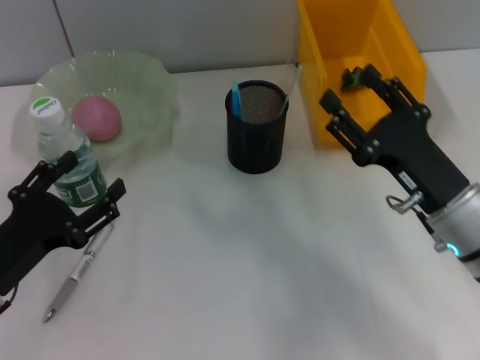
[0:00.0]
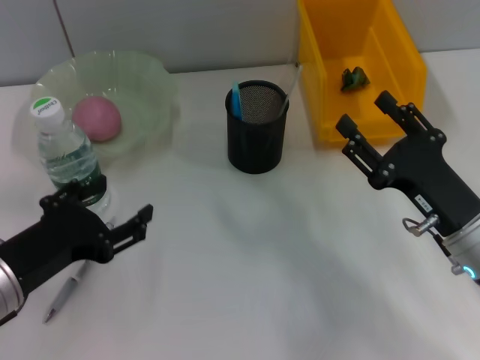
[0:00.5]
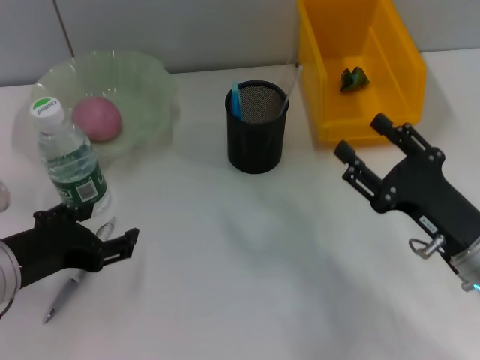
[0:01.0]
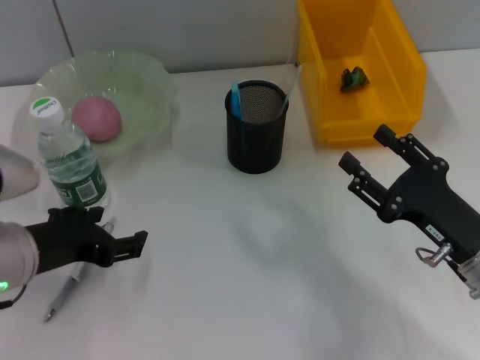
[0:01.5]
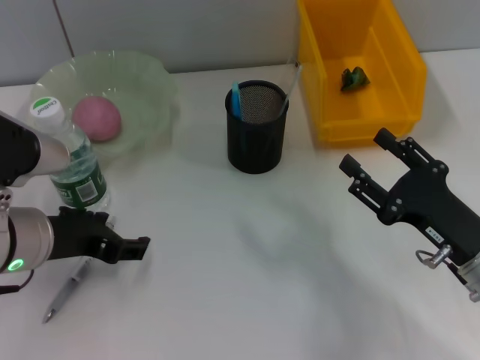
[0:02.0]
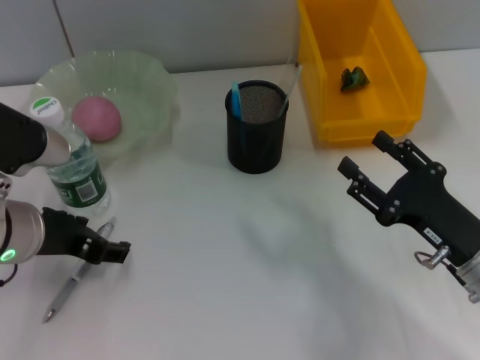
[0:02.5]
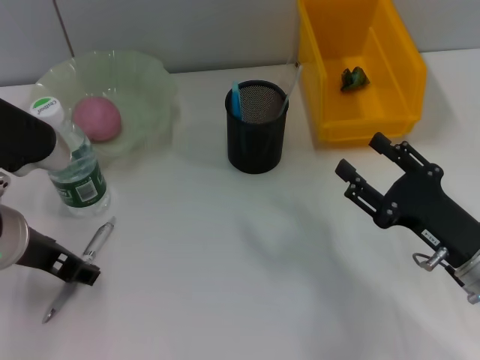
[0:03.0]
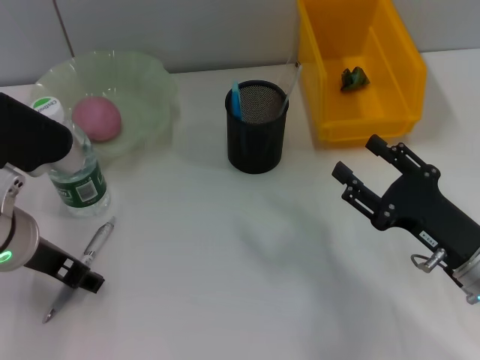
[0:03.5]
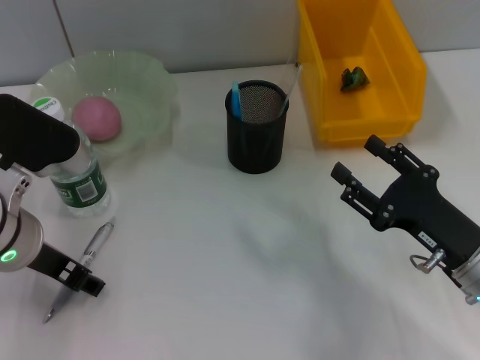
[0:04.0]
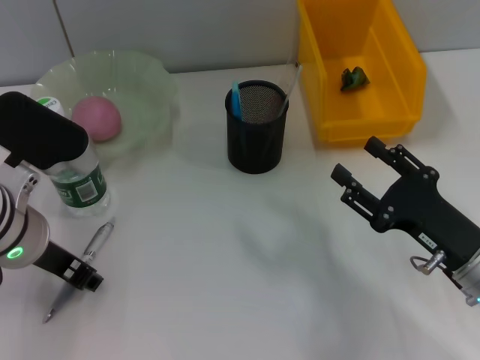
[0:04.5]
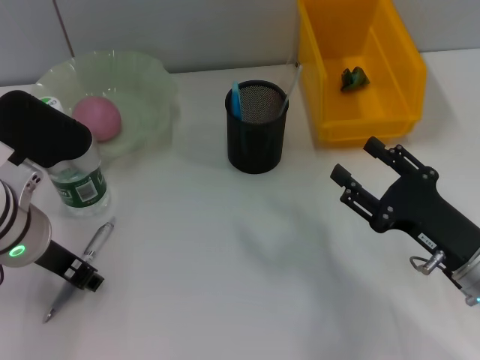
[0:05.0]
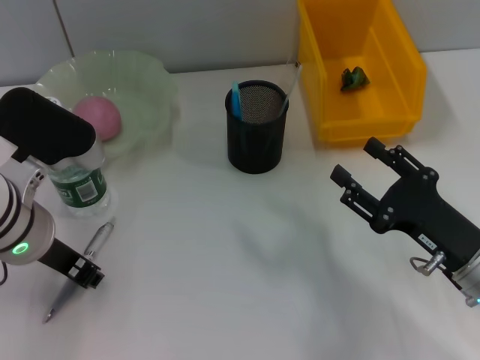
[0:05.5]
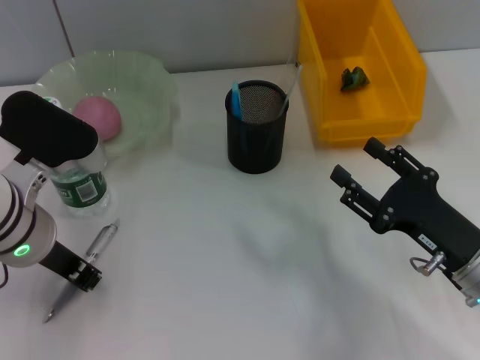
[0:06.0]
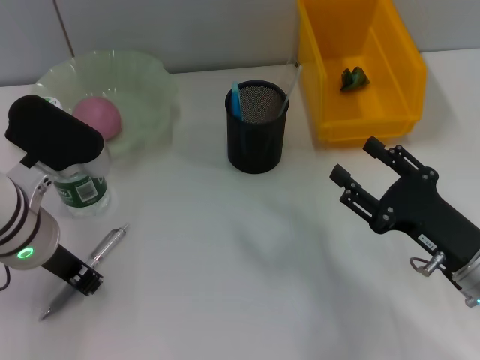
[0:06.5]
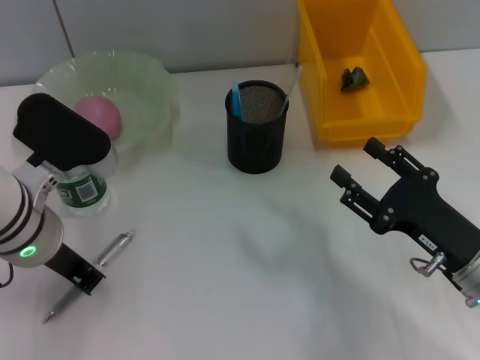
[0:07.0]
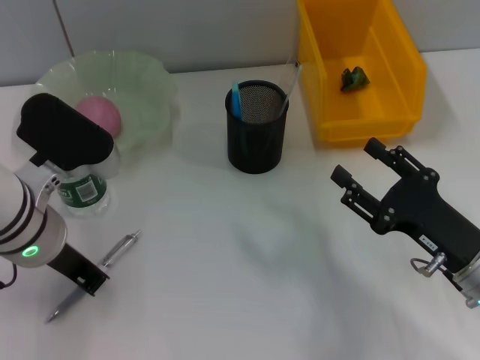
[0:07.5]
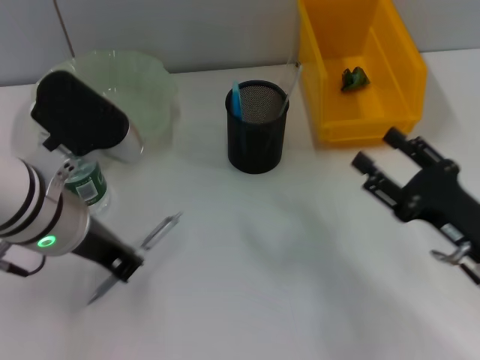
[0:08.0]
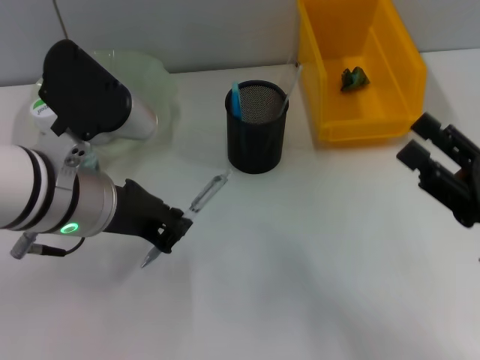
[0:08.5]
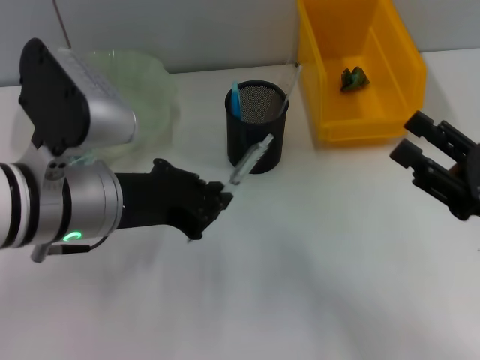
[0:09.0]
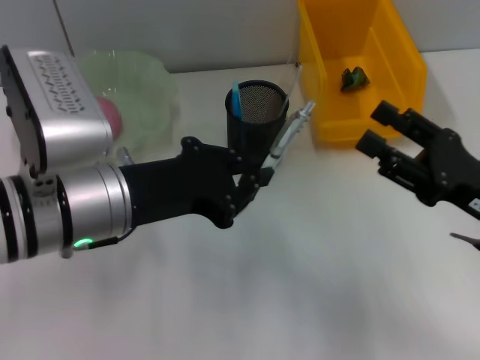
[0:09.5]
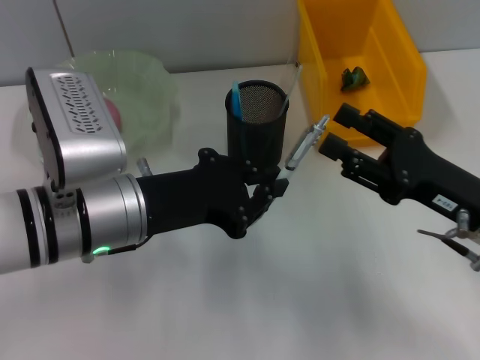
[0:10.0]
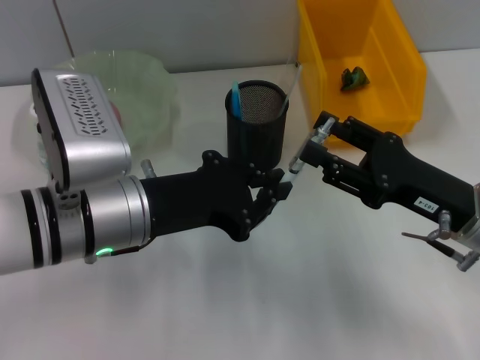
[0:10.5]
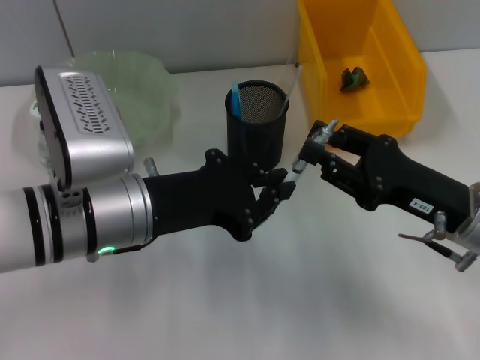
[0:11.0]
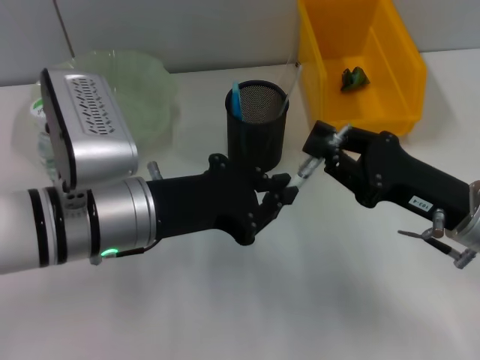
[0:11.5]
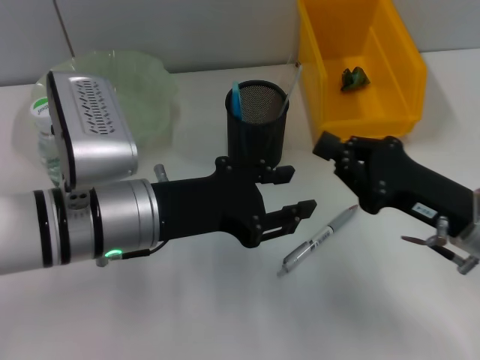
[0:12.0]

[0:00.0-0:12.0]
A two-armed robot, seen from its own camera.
Step, 0:00.0 to 0:07.0: Grab the gray spring-action pen with the left hand.
0:00.0 to 0:02.0: The left gripper shifts roughly 10 cm upward, to the right and forward. The right gripper ends up roughly 5 cm from where it was.
0:04.0 to 0:06.0: The left gripper closes its fingers.
0:06.0 to 0:08.0: The grippers stay close to where they were, moving slightly.
0:08.0 to 0:10.0: The right gripper moves some 5 cm.
0:10.0 to 0:12.0: The right gripper closes.

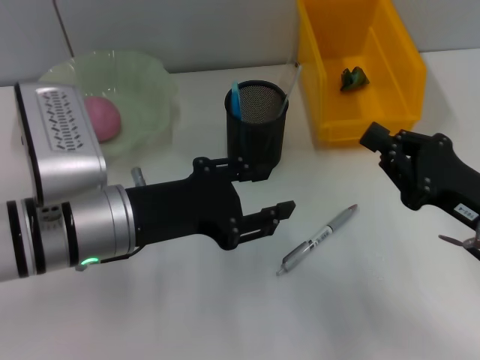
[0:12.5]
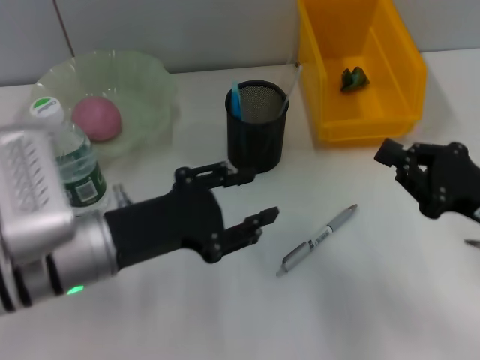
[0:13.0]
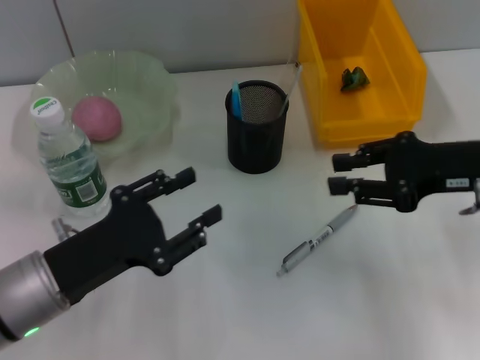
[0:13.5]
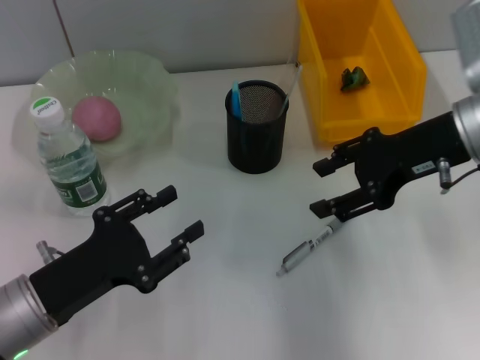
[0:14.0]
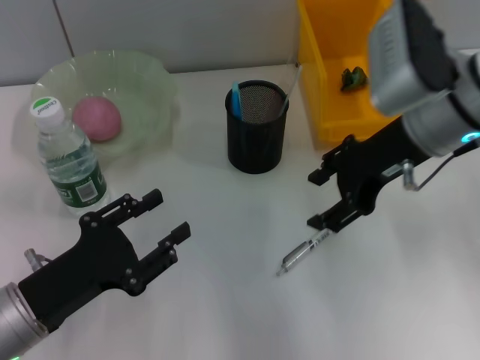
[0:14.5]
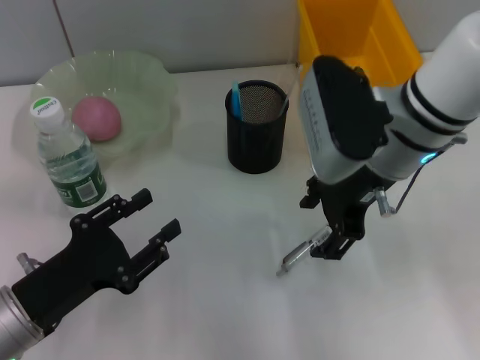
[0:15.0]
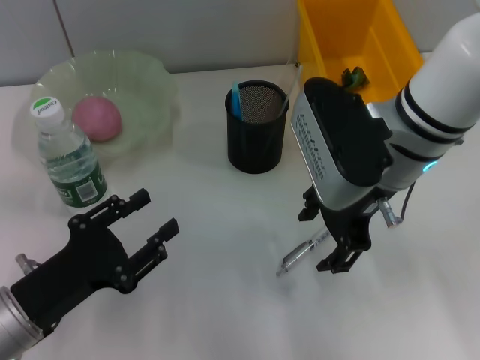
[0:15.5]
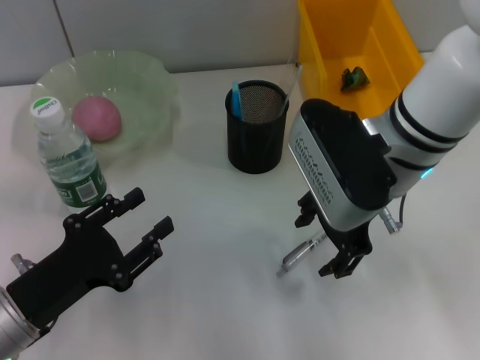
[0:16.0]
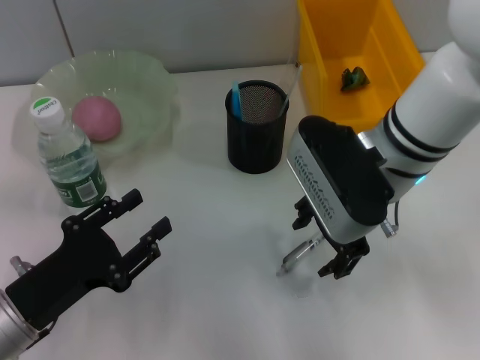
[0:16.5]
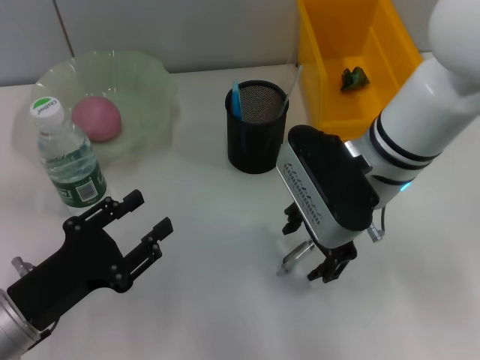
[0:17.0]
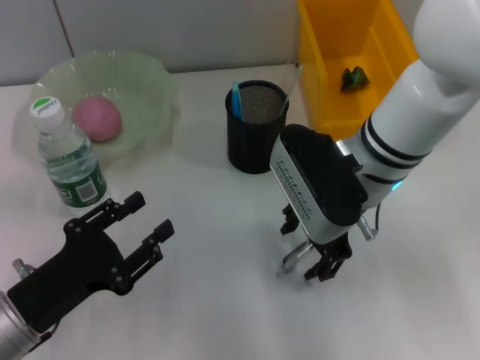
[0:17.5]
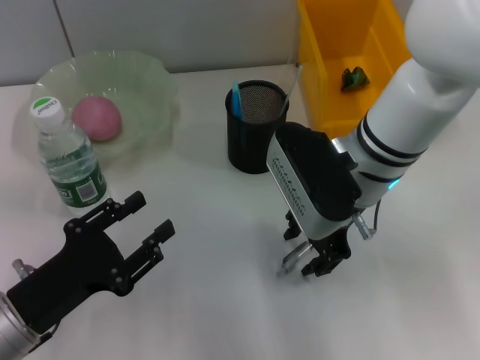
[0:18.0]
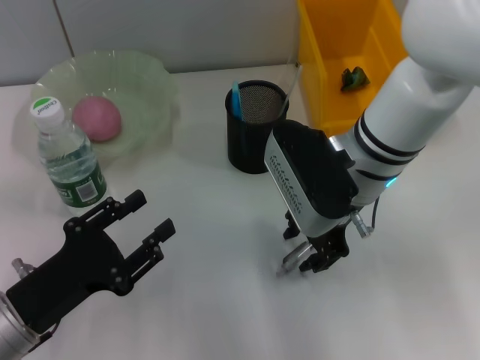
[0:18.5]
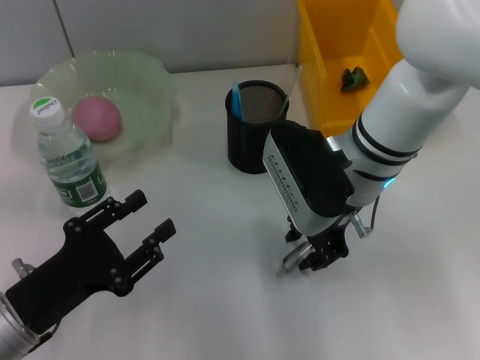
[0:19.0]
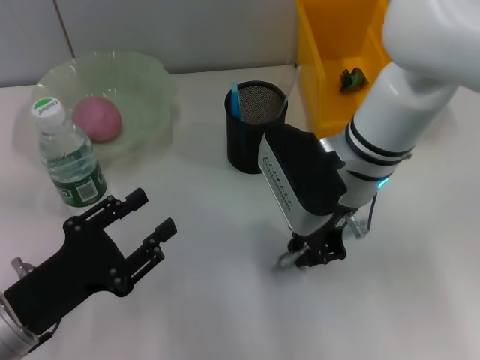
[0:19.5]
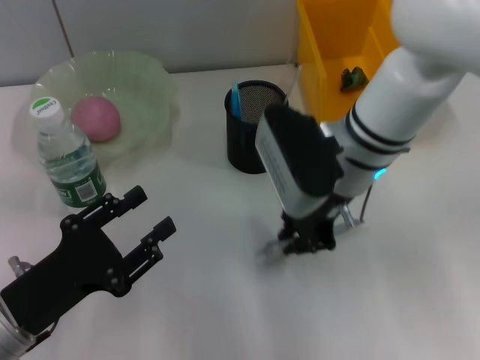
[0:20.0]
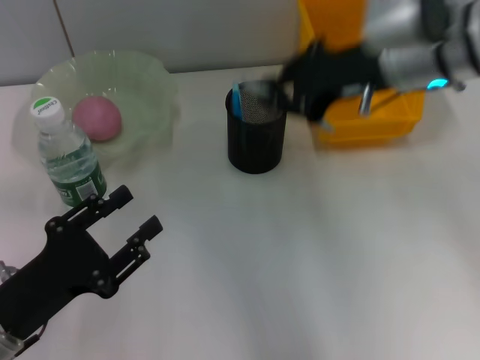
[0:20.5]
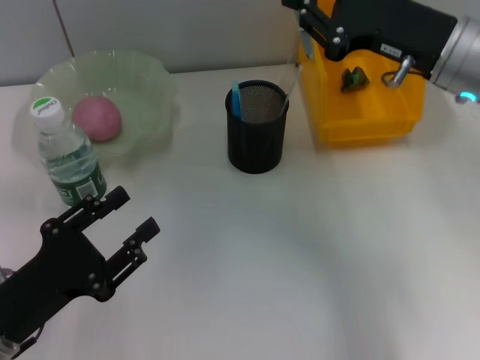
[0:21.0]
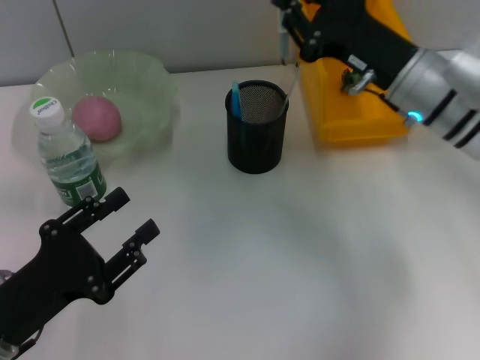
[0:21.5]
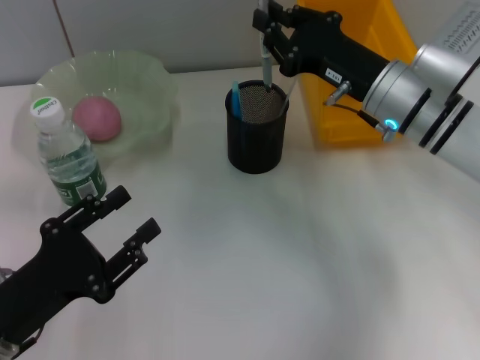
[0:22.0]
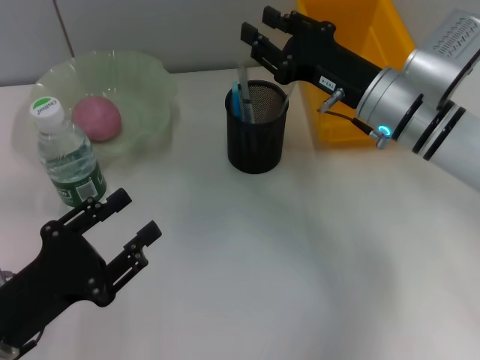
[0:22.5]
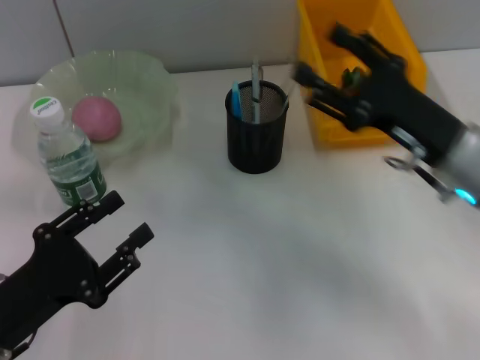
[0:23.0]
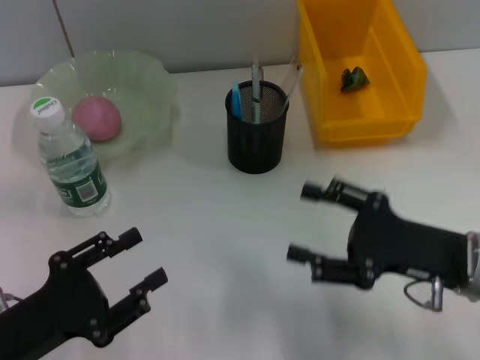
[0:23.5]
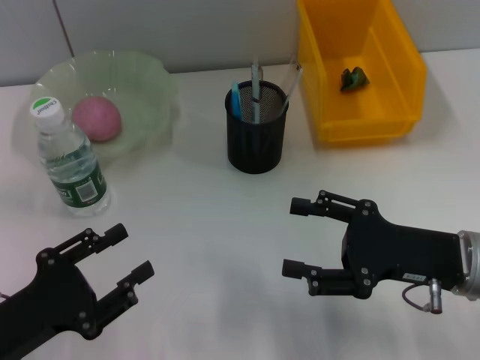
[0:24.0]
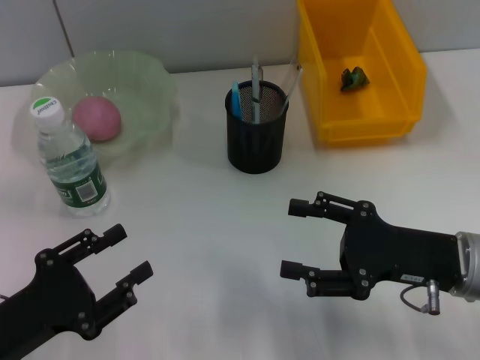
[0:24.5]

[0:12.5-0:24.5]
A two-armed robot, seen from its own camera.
Step, 0:12.5 to 0:19.5: Grab the gray spring-action pen with the right hand.
Step, 0:20.0 to 0:23.0: Place the gray spring-action pen into the pen holder with the right hand.
0:12.5 to 0:14.5: The left gripper heads to the left, downward and backward, covering roughly 15 cm. The right gripper travels upward, forward and to the left by about 20 cm, and opens up.
0:14.5 to 0:16.5: The right gripper moves to the left, approximately 5 cm.
0:16.5 to 0:18.5: There are only small adjustments of the grippers.
0:18.5 to 0:20.5: The right gripper heads upward and to the right, covering roughly 10 cm, and closes up.
0:20.5 to 0:22.5: The right gripper travels downward by approximately 10 cm.
0:22.5 to 0:24.5: The right gripper heads backward and to the right, covering about 15 cm, and opens its fingers.

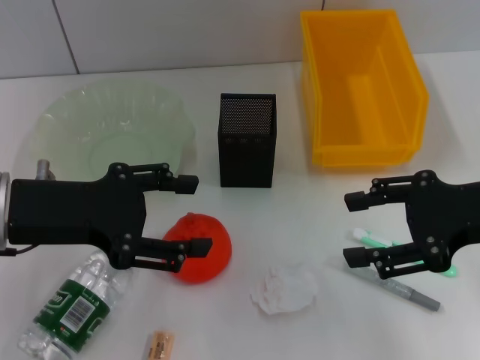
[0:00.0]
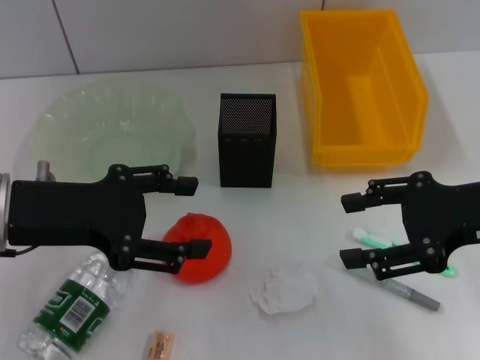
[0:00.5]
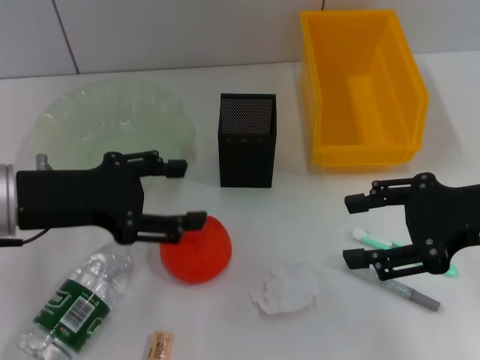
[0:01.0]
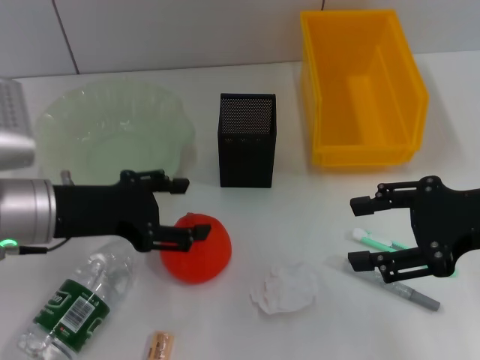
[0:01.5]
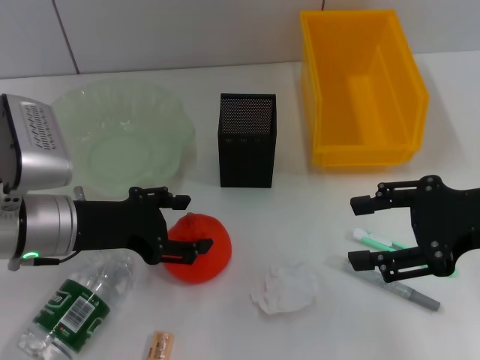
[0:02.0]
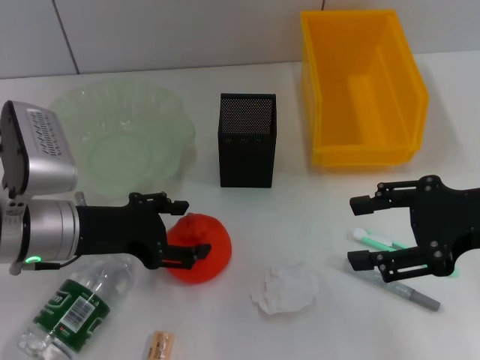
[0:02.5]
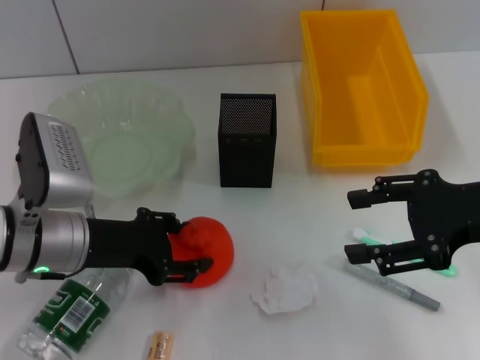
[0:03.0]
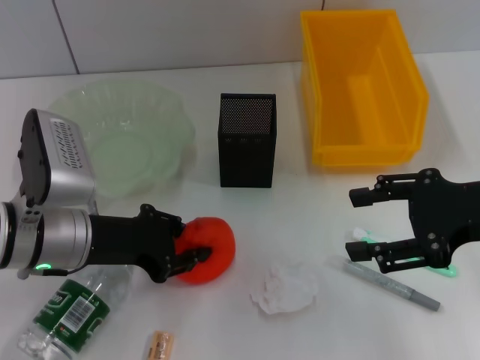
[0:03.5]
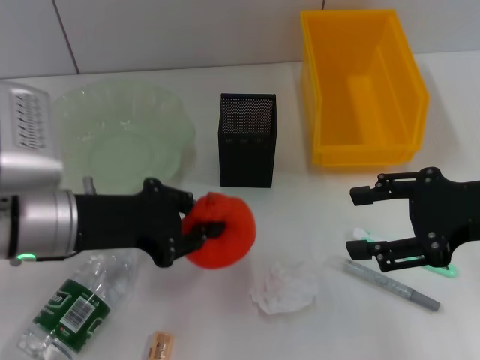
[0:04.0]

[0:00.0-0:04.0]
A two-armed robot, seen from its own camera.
Step, 0:00.0 to 0:03.0: Grab the orange with the left hand.
0:00.0 to 0:02.0: The left gripper heads downward, covering some 5 cm.
0:02.0 to 0:04.0: The left gripper closes its fingers.
